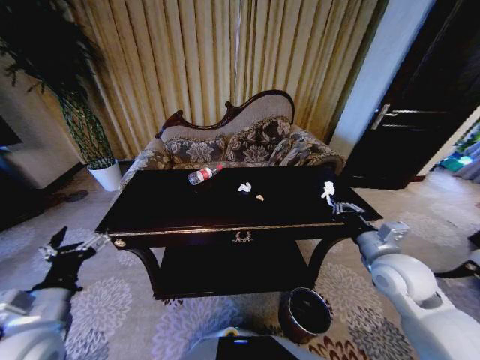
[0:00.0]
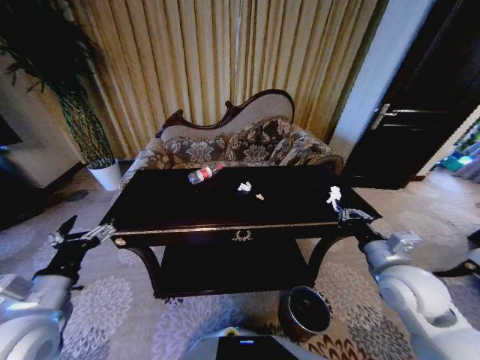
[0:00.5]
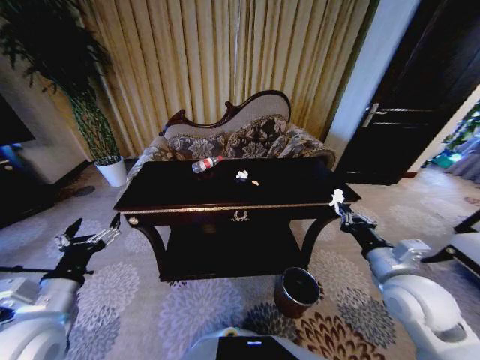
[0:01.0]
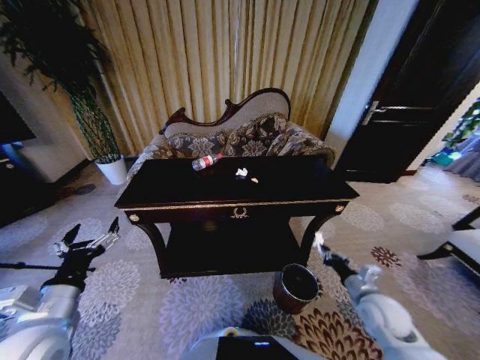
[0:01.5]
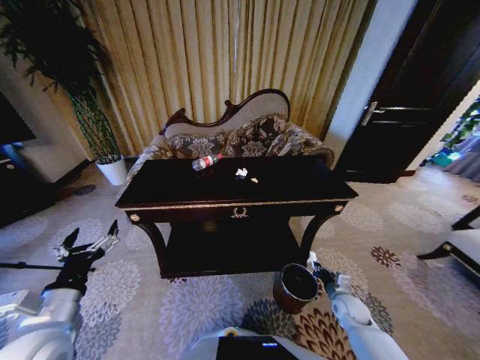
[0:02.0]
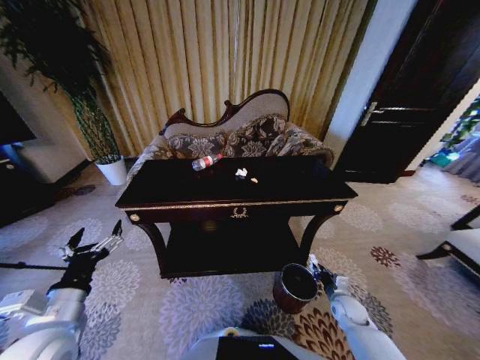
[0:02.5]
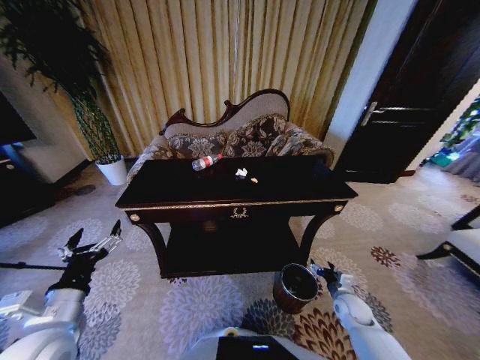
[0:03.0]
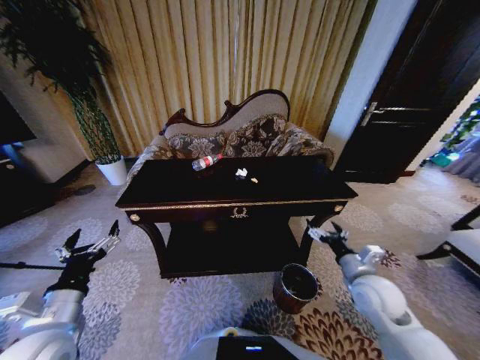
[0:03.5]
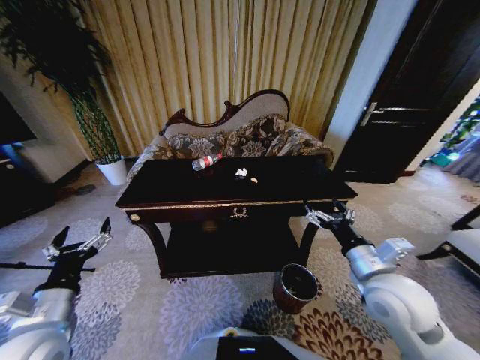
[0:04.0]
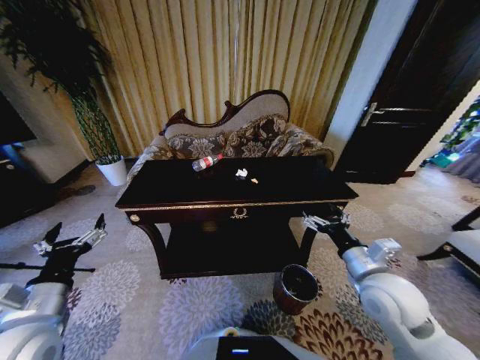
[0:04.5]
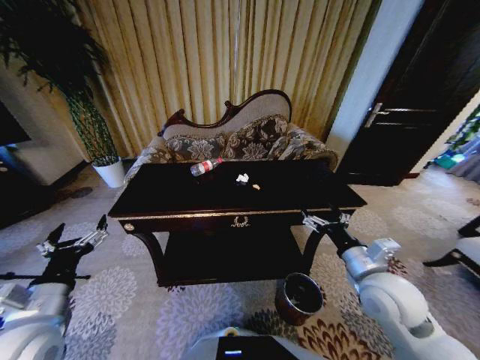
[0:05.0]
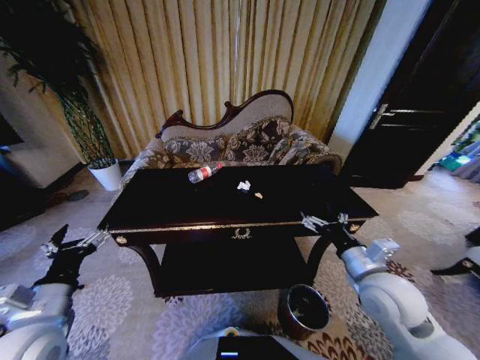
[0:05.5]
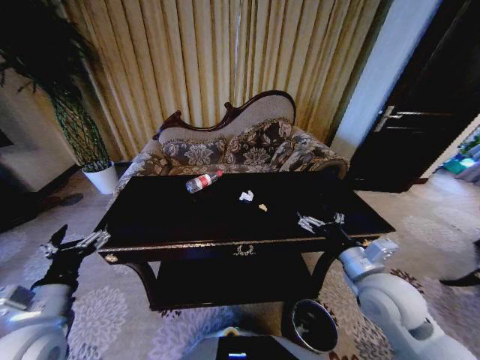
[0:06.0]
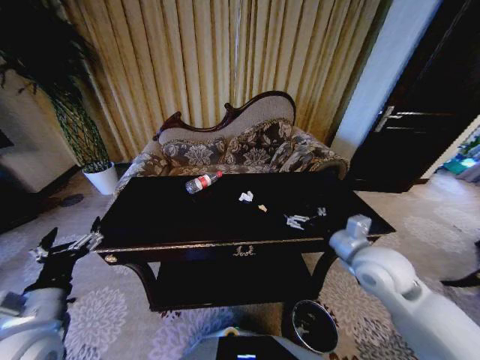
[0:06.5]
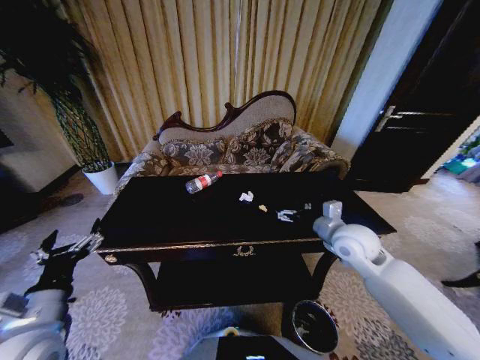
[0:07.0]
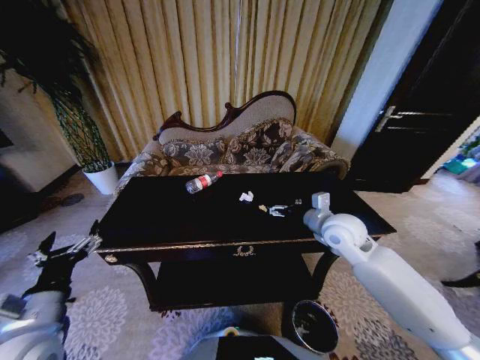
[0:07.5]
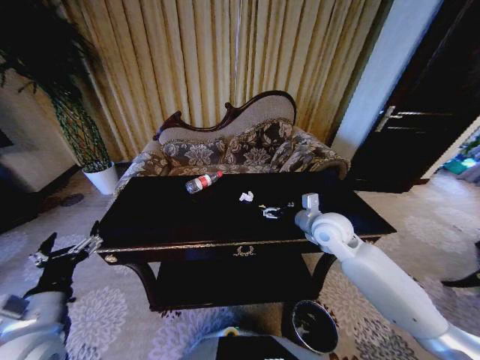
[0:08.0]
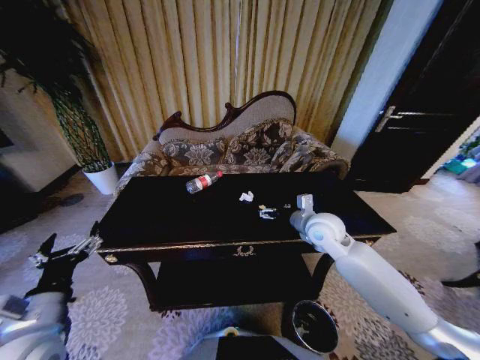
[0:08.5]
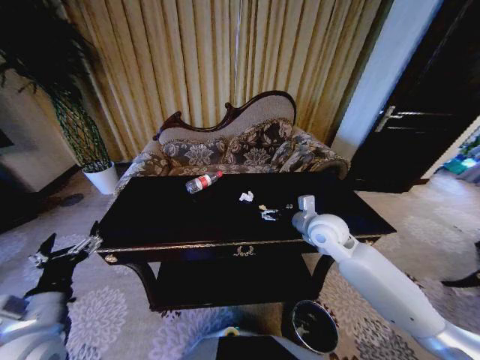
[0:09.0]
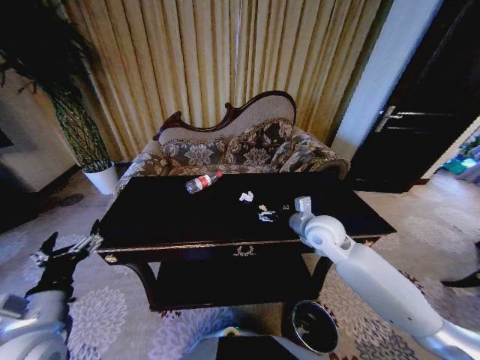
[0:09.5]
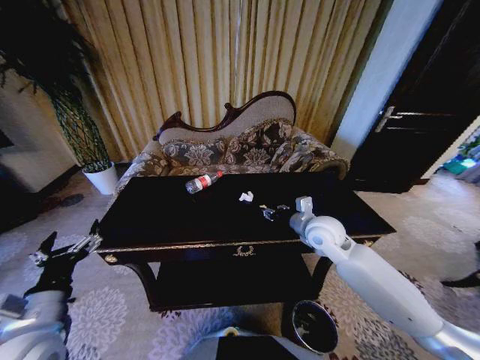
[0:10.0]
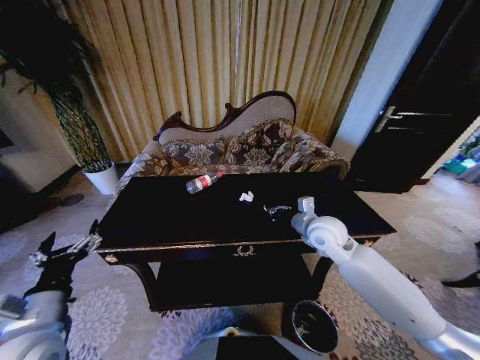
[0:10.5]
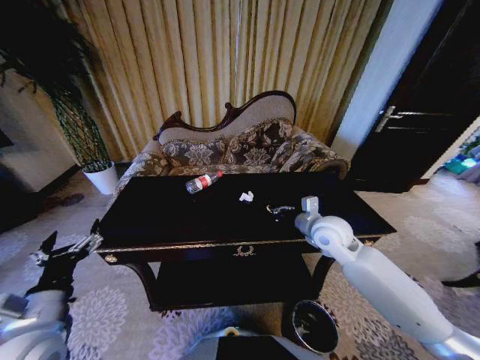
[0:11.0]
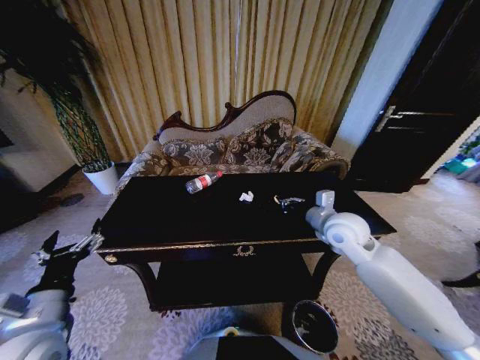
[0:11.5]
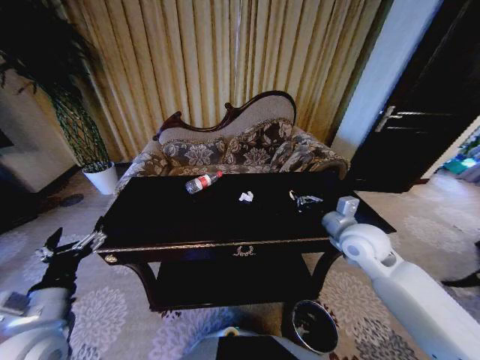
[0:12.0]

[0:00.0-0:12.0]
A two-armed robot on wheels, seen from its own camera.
Task of the whole recording: Move to the front of the table and place the trash on the table into the trash bin.
0:00.0 to 0:02.0: The right gripper shifts some 25 cm downward.
0:02.0 to 0:04.0: The right gripper heads upward, covering about 30 cm, and opens up.
0:06.0 to 0:08.0: The right gripper moves forward, roughly 15 cm.
0:08.0 to 0:10.0: The right gripper closes.
0:10.0 to 0:12.0: The right gripper moves to the right, roughly 5 cm, and closes its fingers.

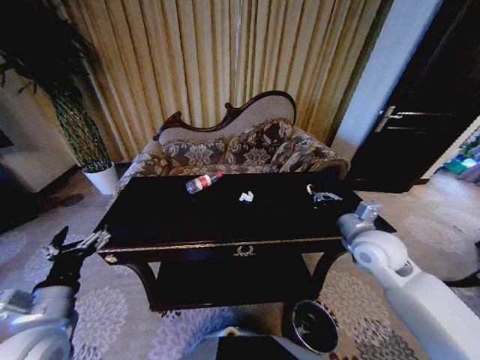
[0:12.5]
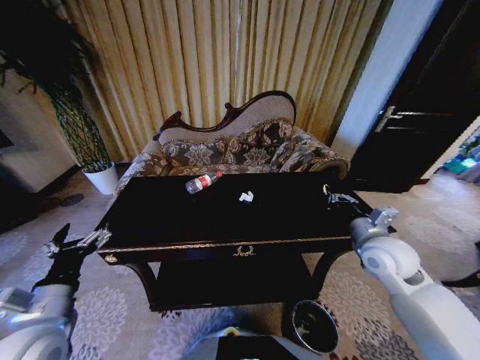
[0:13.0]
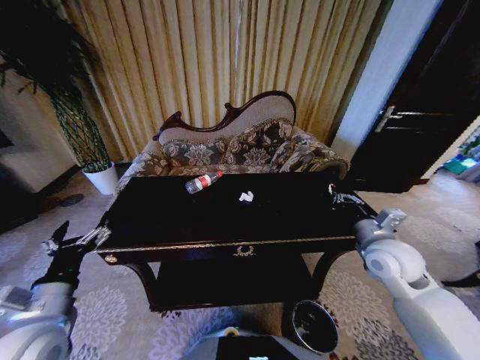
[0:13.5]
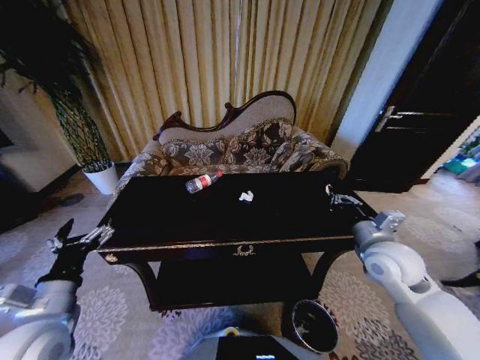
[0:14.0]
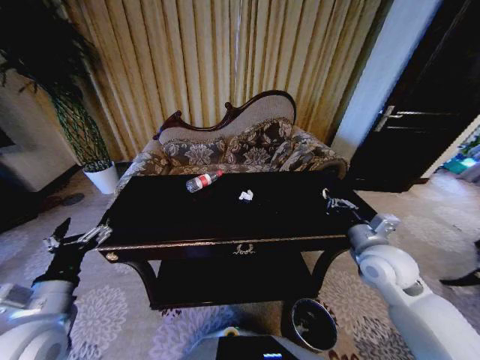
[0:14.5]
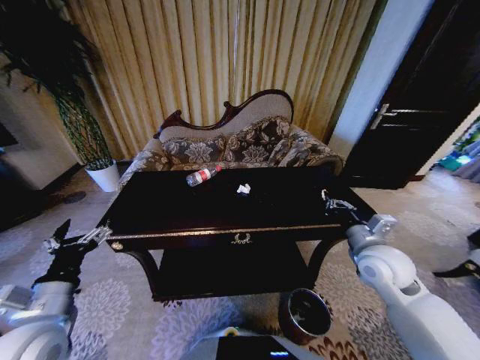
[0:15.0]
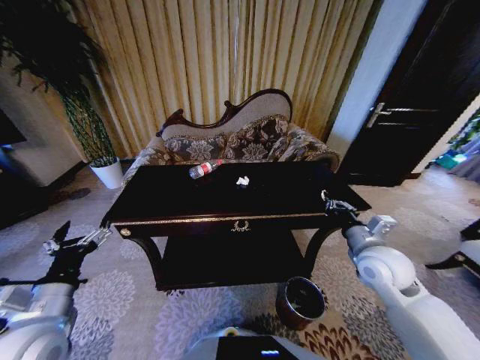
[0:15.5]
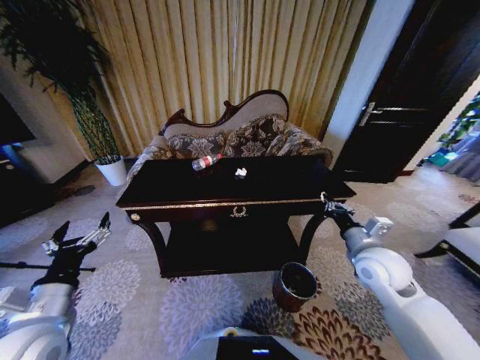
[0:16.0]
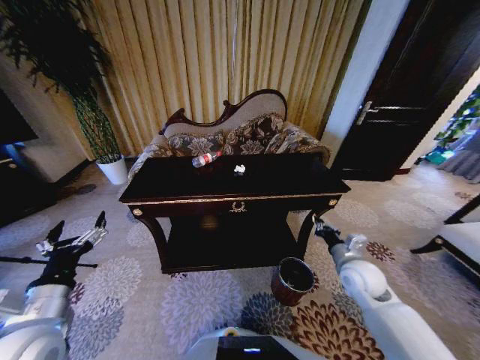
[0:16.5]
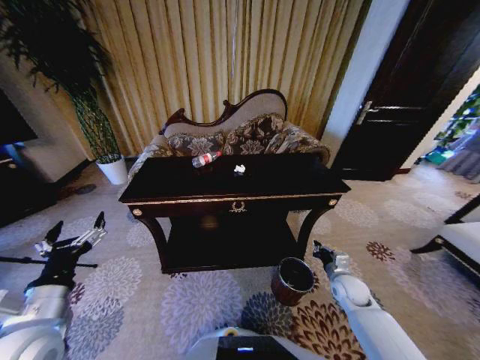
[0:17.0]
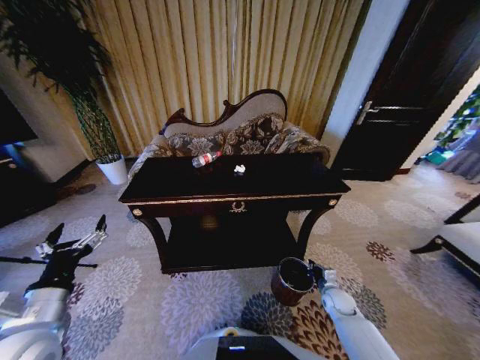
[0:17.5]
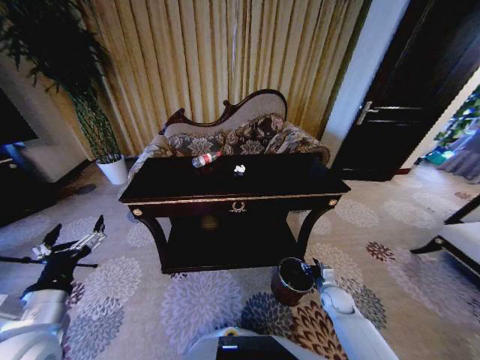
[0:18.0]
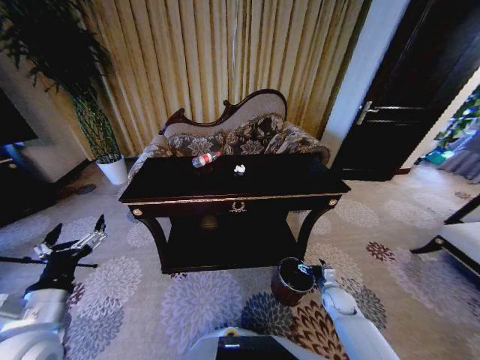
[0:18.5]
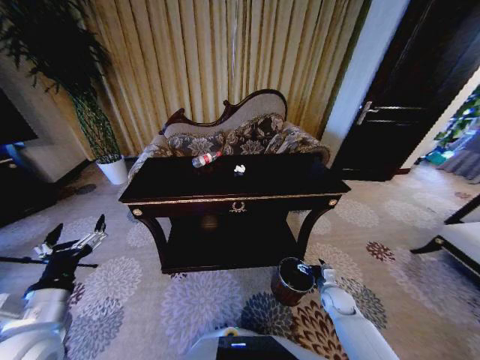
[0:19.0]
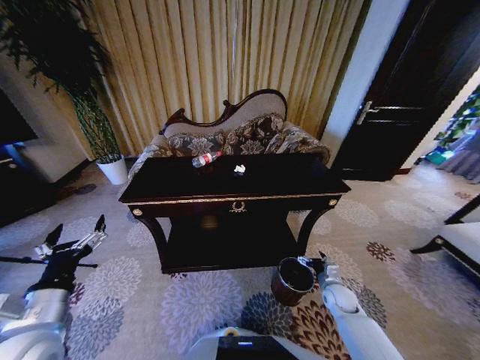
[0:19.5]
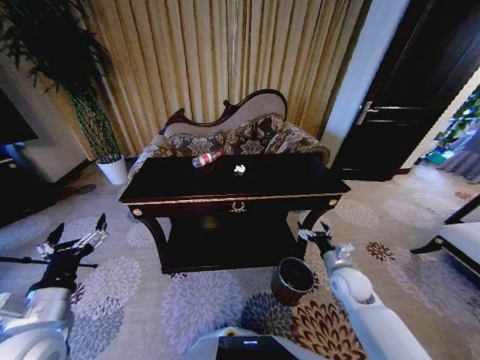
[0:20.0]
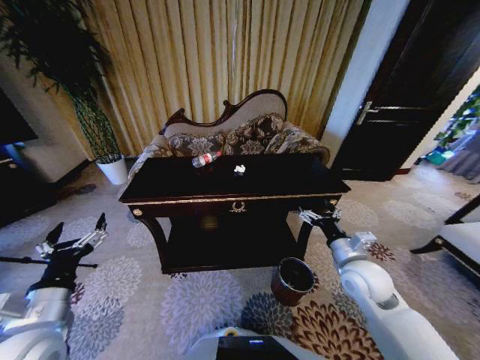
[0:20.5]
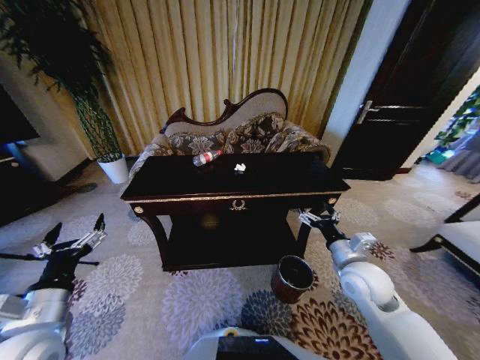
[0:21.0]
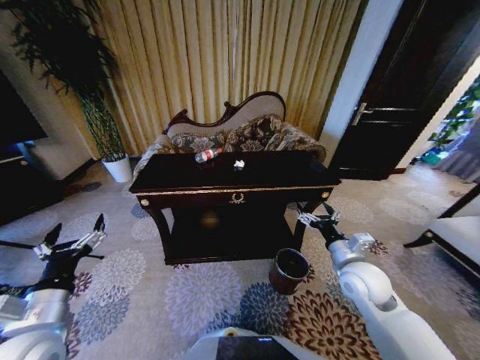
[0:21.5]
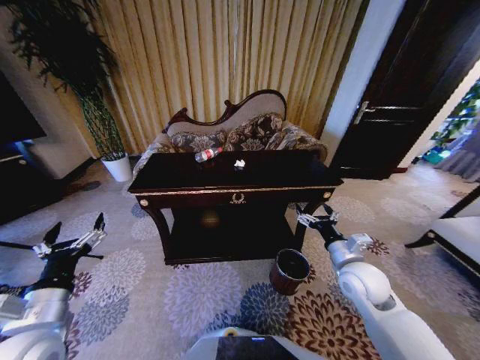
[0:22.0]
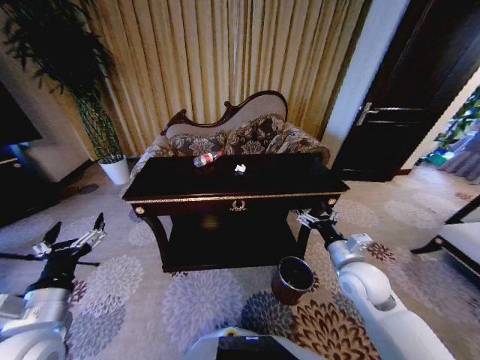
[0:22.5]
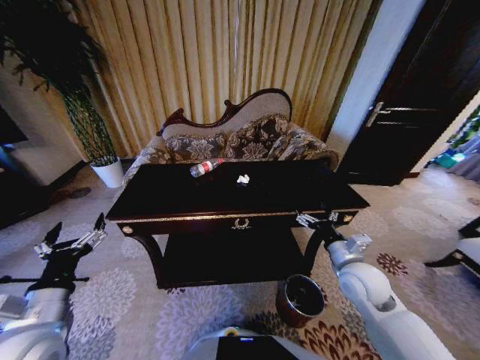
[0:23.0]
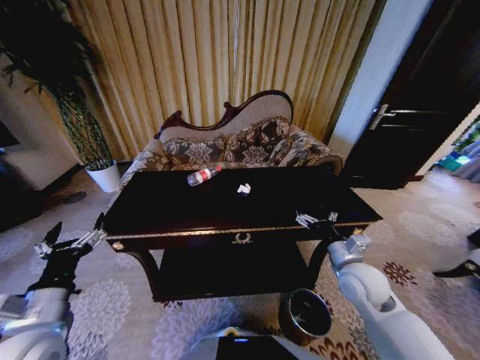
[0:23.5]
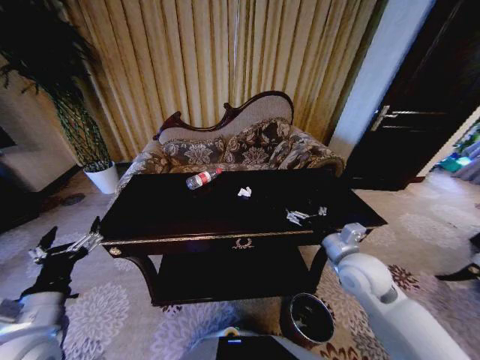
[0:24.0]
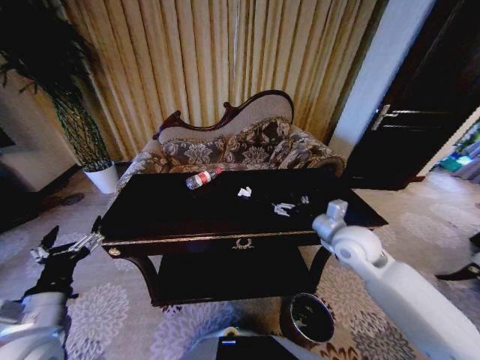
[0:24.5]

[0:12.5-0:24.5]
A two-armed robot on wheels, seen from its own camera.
Task of the whole recording: Move to the front of the table and place the trash on the table into the trash bin.
0:12.5 to 0:14.5: The grippers move only a little.
0:14.5 to 0:16.5: The right gripper shifts approximately 10 cm downward.
0:16.5 to 0:18.5: The right gripper moves downward, about 20 cm, and opens up.
0:18.5 to 0:20.5: The right gripper goes roughly 25 cm upward.
0:20.5 to 0:22.5: Neither gripper changes place.
0:22.5 to 0:24.5: The right gripper travels upward and forward by roughly 10 cm.

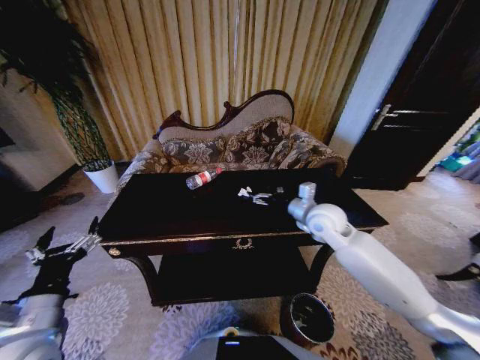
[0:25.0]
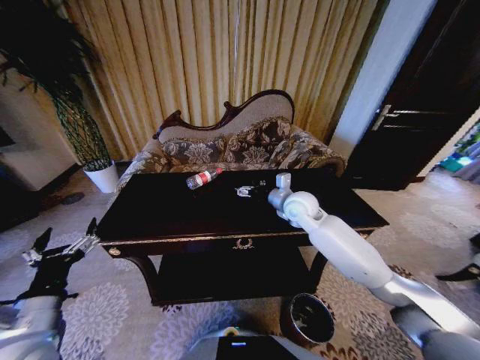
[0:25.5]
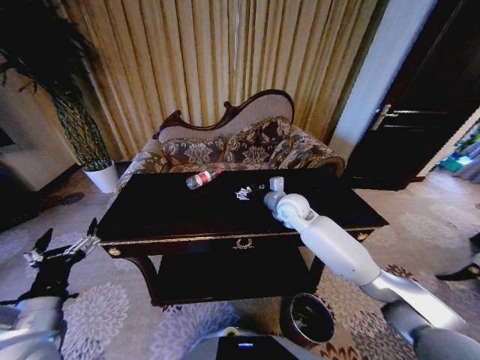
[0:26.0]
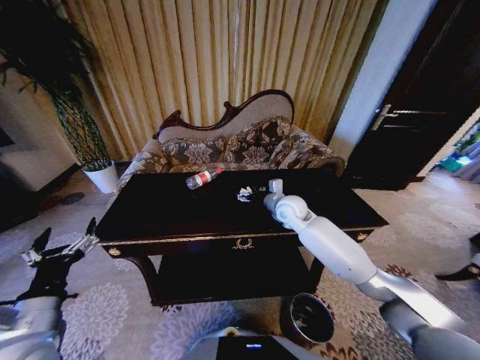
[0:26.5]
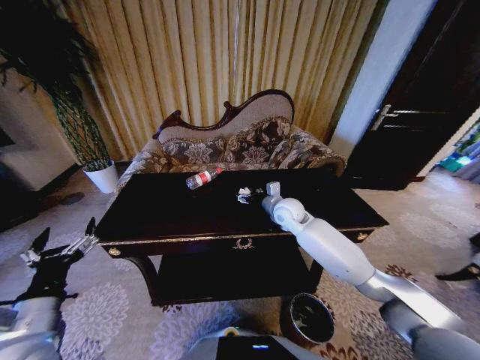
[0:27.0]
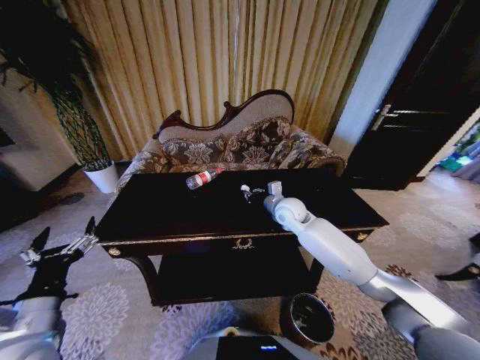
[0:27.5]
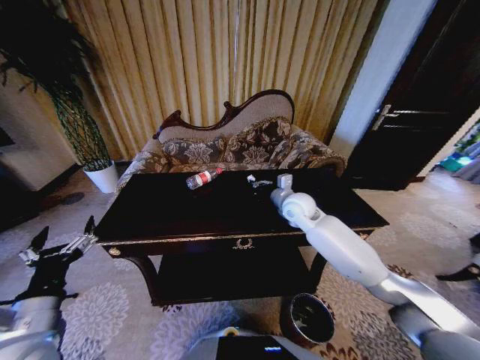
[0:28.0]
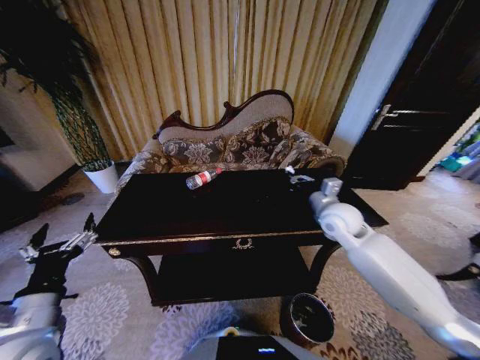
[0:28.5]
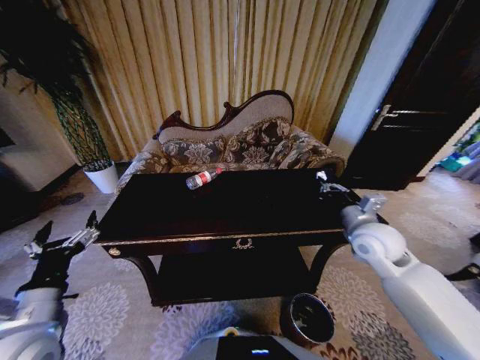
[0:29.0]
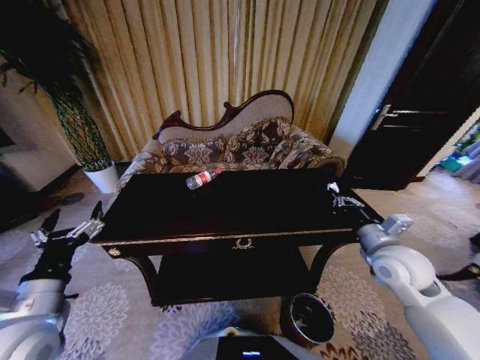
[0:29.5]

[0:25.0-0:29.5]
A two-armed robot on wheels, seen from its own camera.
Task of the whole recording: Move to the front of the table and place the trash on the table into the trash bin.
0:25.0 to 0:27.0: The right gripper travels forward and to the left by roughly 10 cm.
0:27.0 to 0:29.5: The right gripper goes about 25 cm backward and to the right, and closes up.
